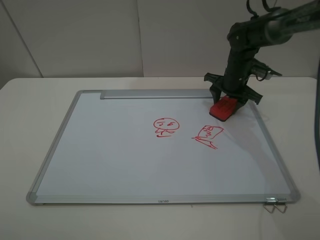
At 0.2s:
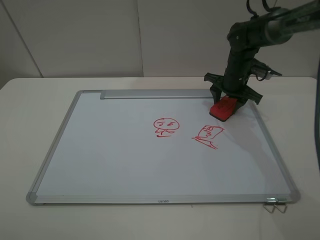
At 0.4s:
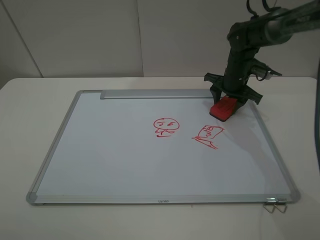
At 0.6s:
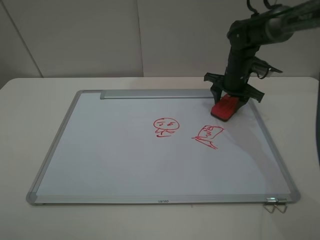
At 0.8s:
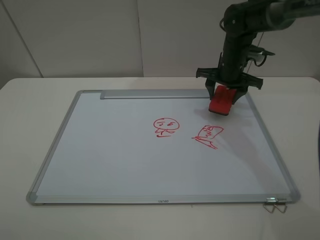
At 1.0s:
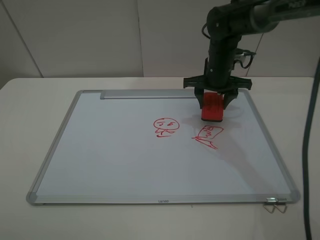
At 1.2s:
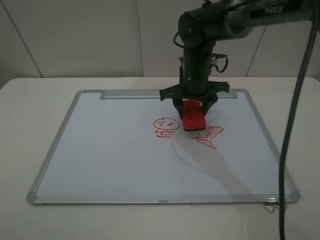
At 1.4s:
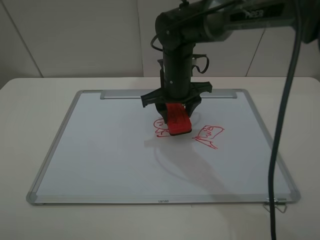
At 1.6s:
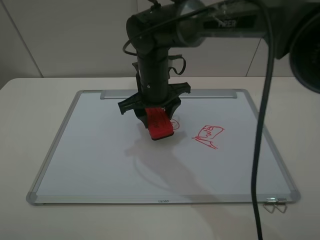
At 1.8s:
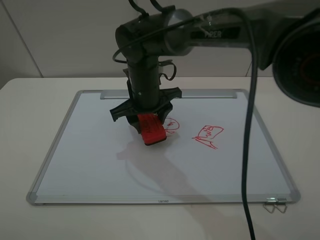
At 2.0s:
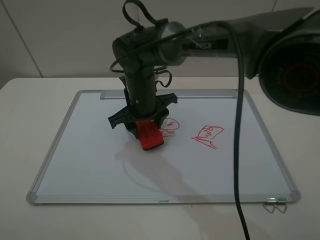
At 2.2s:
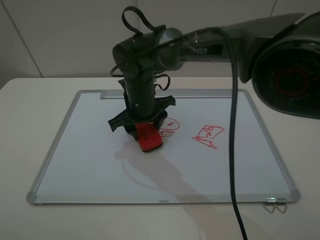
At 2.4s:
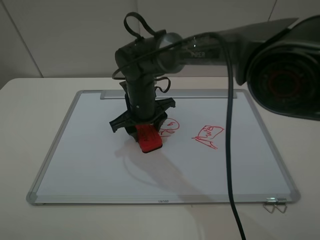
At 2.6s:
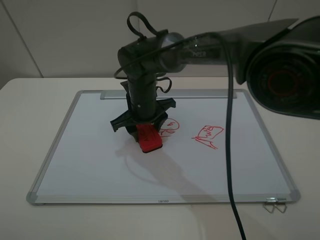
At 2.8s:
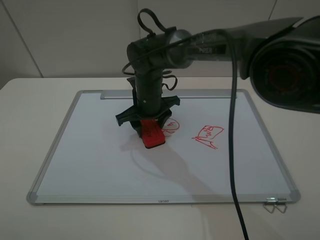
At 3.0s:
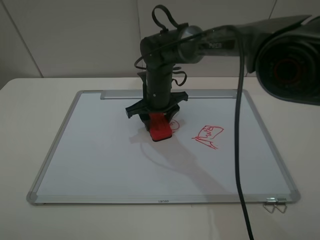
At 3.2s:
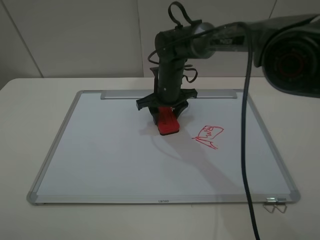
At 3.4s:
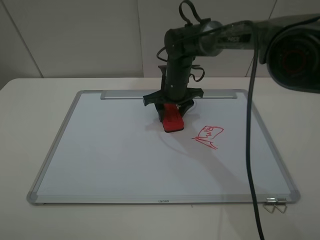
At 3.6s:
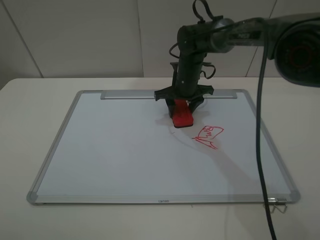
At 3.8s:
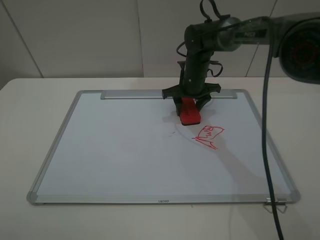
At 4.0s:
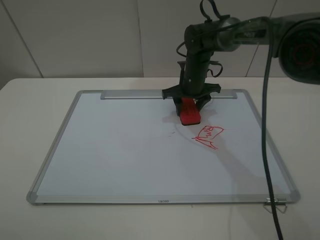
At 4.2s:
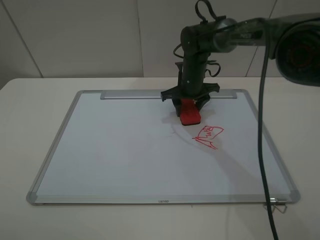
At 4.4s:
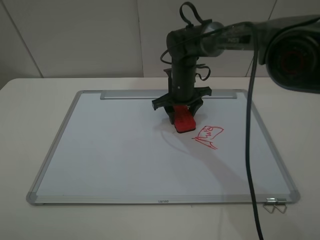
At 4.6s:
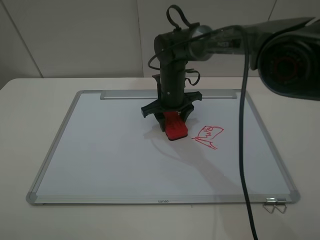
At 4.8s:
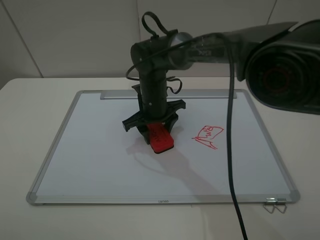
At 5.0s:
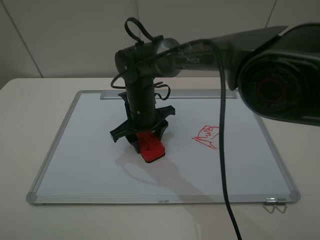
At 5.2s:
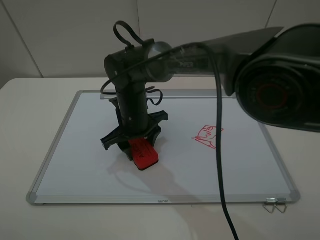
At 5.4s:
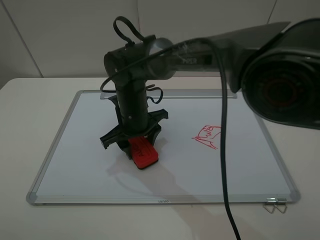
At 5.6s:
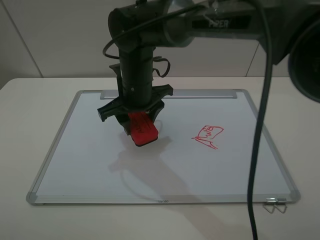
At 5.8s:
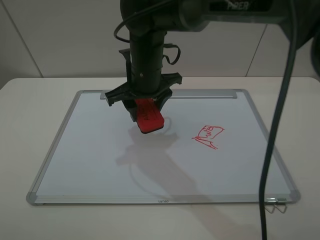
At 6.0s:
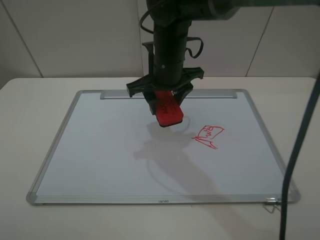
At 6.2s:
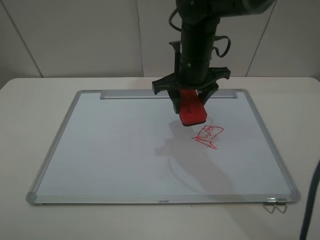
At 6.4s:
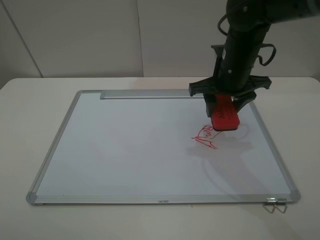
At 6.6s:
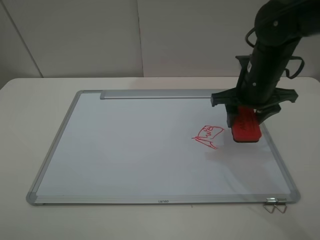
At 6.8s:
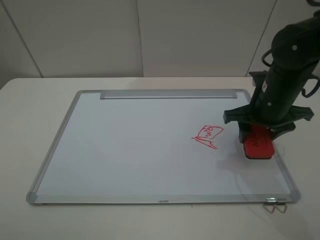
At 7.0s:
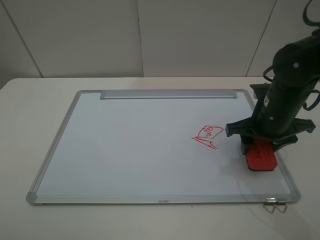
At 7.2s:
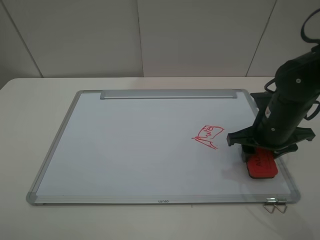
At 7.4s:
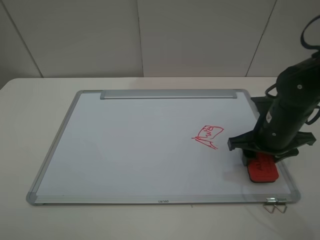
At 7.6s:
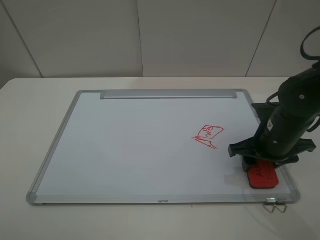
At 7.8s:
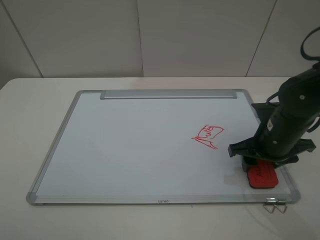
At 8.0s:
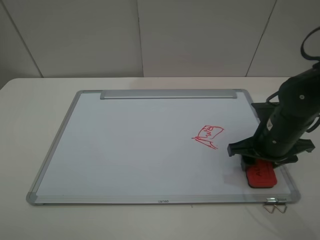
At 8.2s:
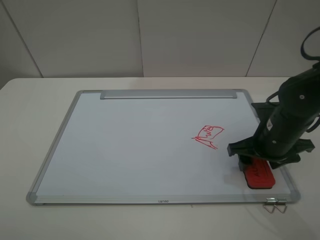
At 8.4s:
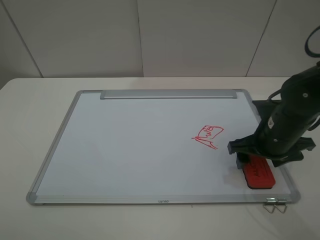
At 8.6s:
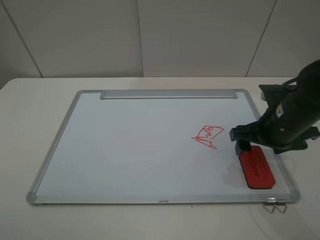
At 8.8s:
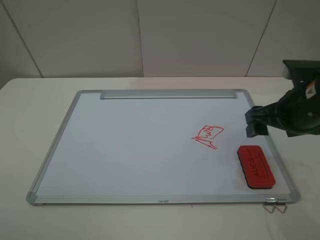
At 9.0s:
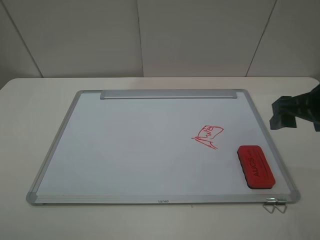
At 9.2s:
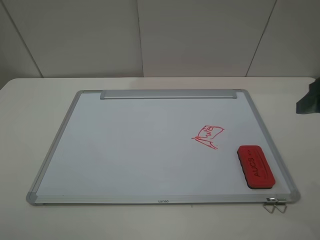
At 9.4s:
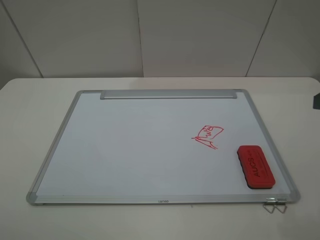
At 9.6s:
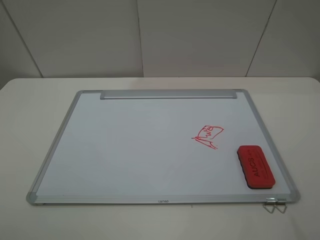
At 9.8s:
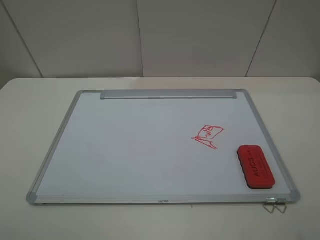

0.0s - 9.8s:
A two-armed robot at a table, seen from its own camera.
Step, 0.2s - 5.6s: Grasp the eraser and wipe the blackboard with the right gripper.
Step, 5.8s - 8.6s: Place the eraser with the right gripper.
0.0s - 1.4s: The right gripper goes roughly 20 cm to the left and backward.
1.4s - 2.8s: The right gripper moves downward, about 5 cm.
2.8s - 4.2s: The right gripper travels to the right and forward by some 10 cm.
4.2s - 5.6s: The right gripper goes some 20 cm to the left, backward and upward.
5.6s - 7.0s: The right gripper goes about 25 cm to the right.
7.0s - 8.4s: The right gripper opens its fingers.
8.4s - 9.8s: The right gripper heads upward and backward, covering some 25 cm.

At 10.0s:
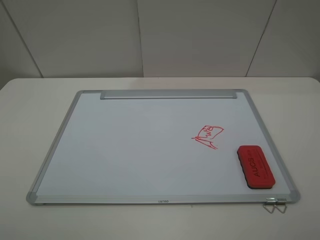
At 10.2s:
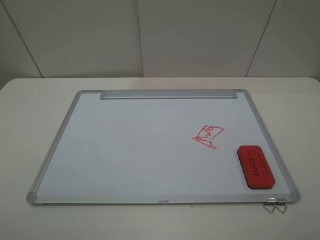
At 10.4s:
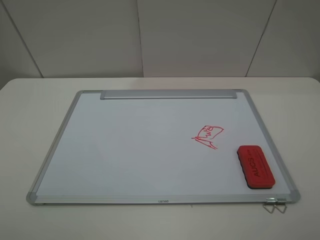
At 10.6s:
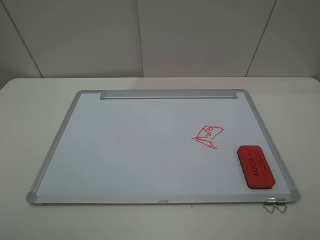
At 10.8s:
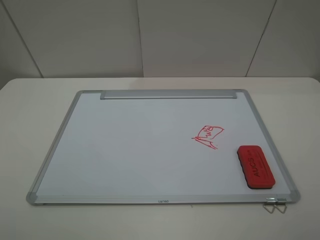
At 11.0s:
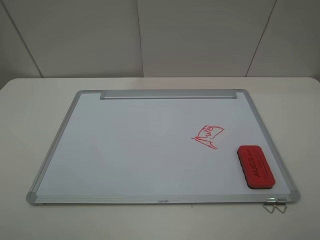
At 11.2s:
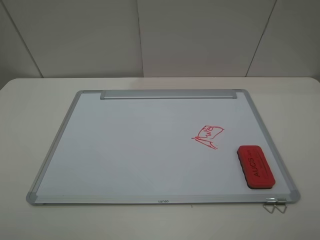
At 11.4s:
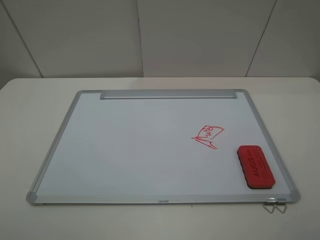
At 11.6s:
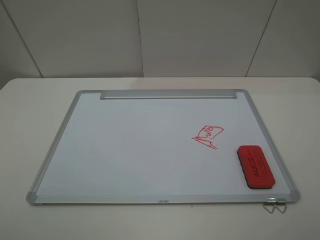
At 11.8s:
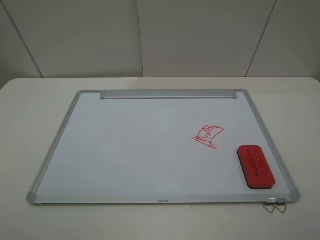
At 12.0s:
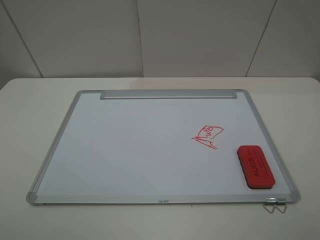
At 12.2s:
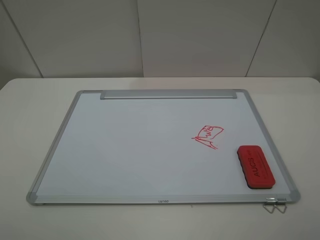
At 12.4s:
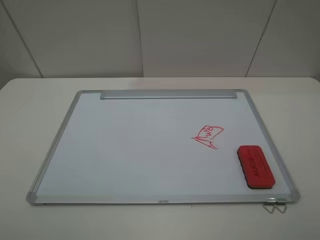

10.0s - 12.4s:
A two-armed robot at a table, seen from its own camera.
11.2s - 12.4s: The two grippers keep their place.

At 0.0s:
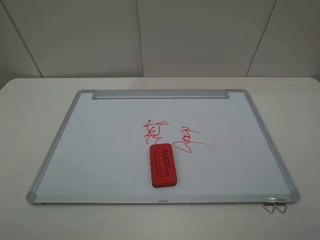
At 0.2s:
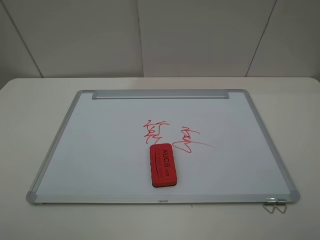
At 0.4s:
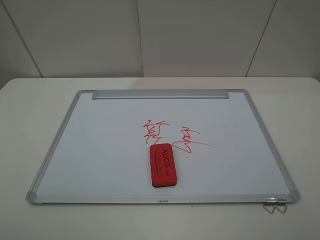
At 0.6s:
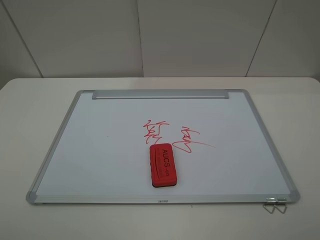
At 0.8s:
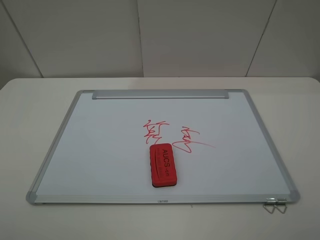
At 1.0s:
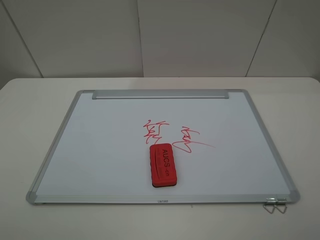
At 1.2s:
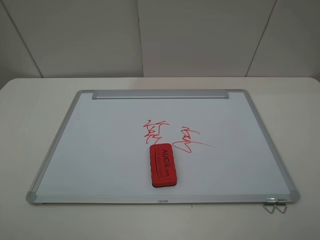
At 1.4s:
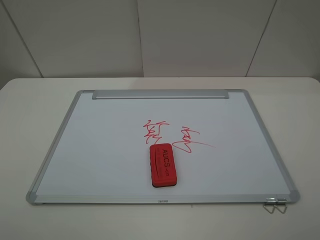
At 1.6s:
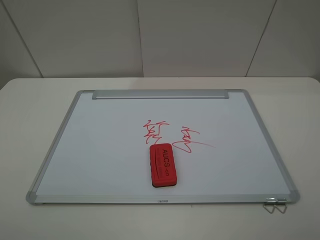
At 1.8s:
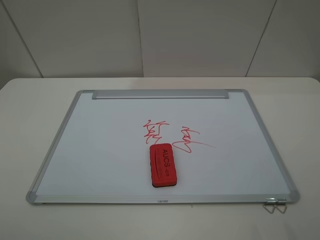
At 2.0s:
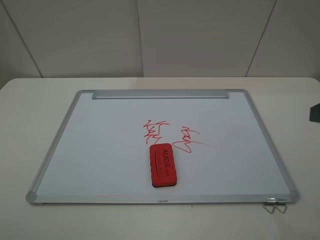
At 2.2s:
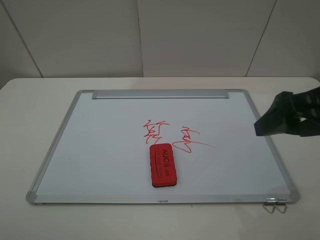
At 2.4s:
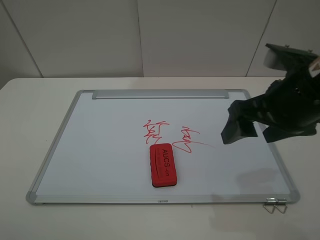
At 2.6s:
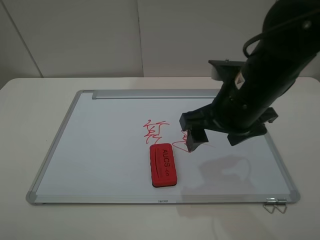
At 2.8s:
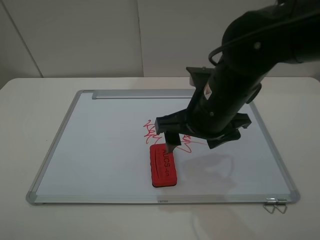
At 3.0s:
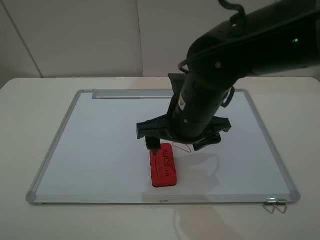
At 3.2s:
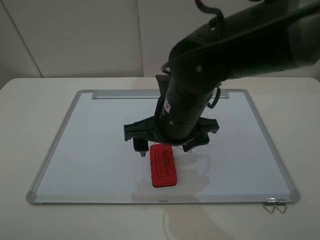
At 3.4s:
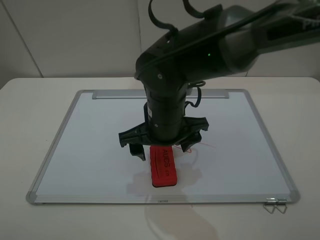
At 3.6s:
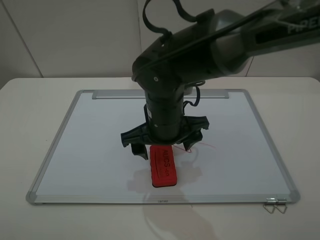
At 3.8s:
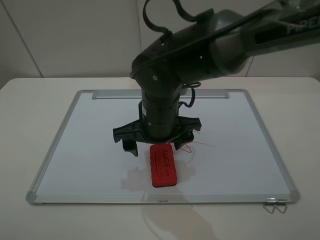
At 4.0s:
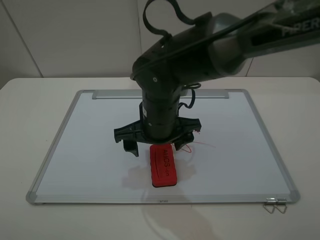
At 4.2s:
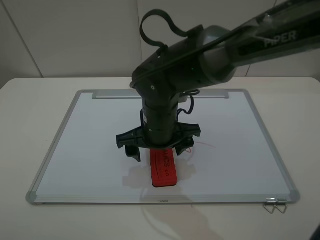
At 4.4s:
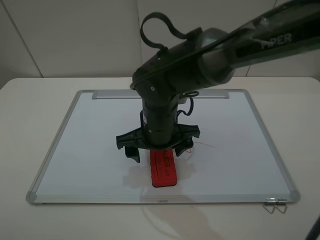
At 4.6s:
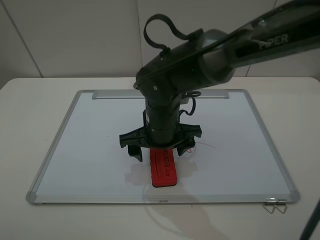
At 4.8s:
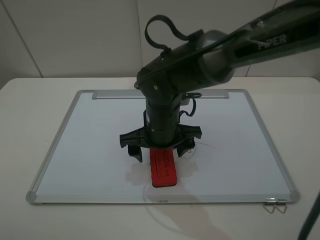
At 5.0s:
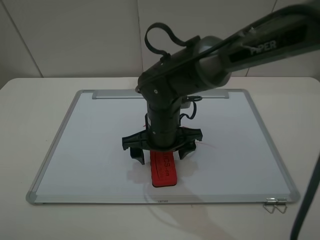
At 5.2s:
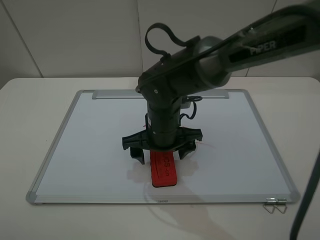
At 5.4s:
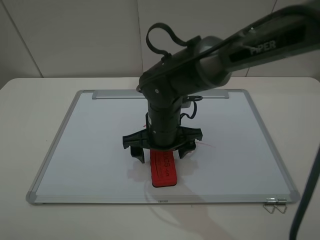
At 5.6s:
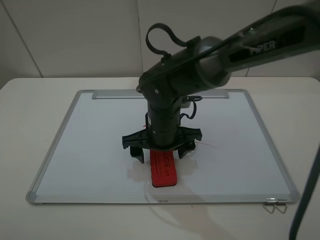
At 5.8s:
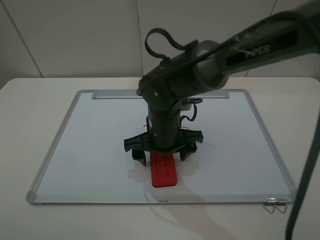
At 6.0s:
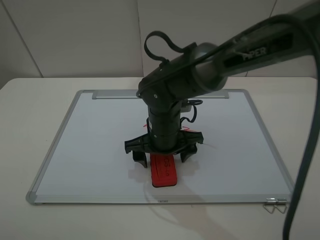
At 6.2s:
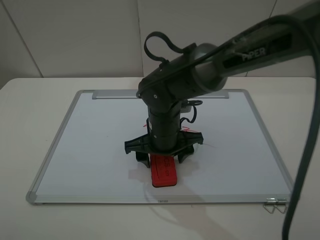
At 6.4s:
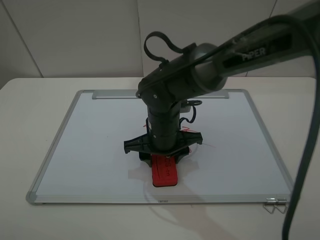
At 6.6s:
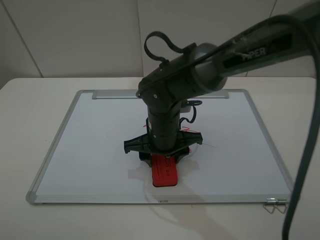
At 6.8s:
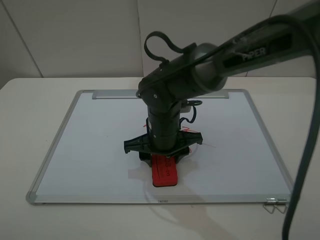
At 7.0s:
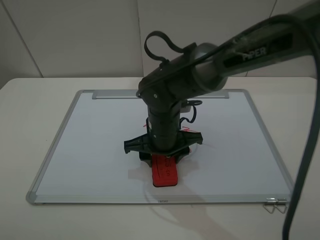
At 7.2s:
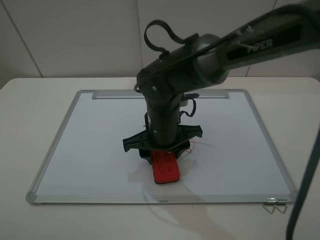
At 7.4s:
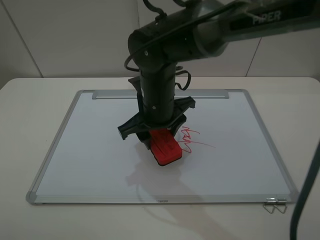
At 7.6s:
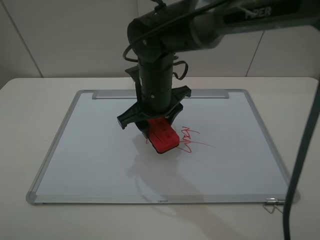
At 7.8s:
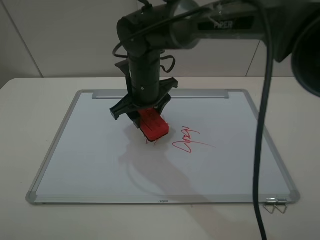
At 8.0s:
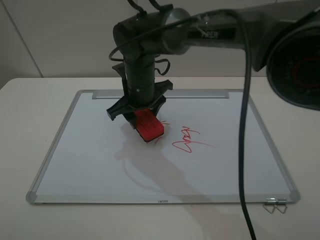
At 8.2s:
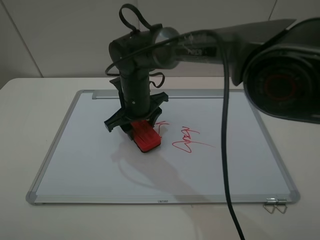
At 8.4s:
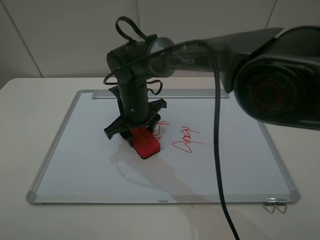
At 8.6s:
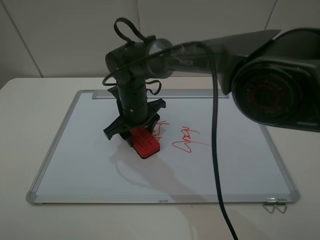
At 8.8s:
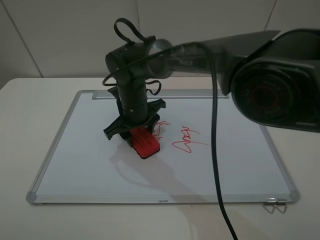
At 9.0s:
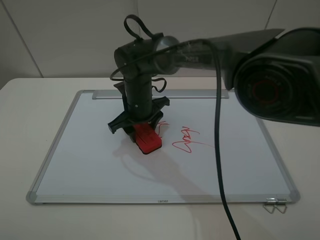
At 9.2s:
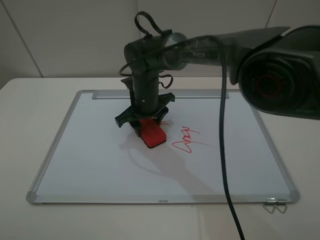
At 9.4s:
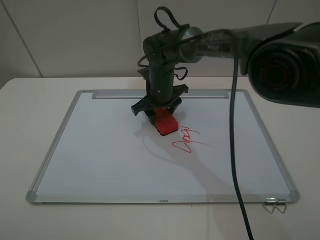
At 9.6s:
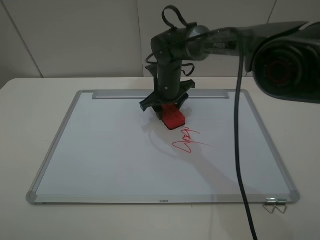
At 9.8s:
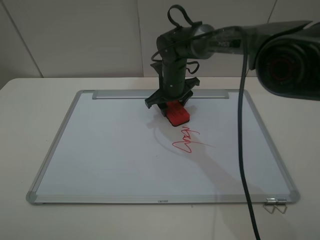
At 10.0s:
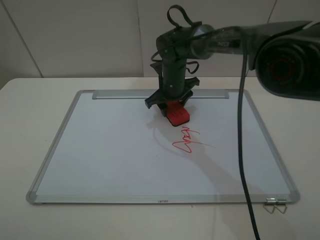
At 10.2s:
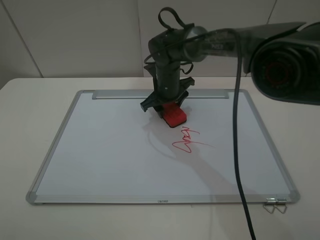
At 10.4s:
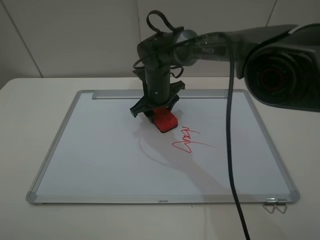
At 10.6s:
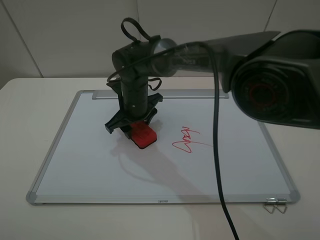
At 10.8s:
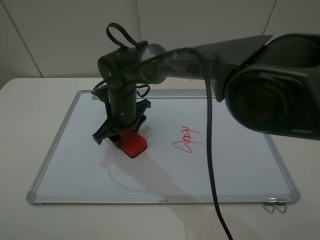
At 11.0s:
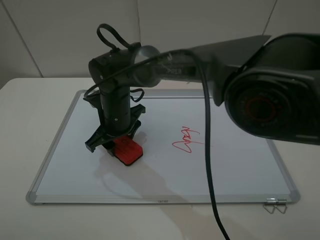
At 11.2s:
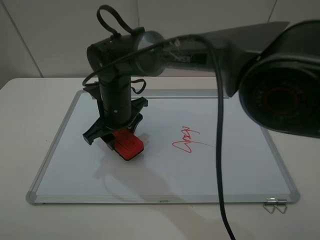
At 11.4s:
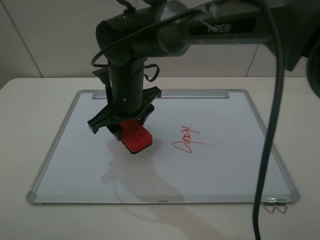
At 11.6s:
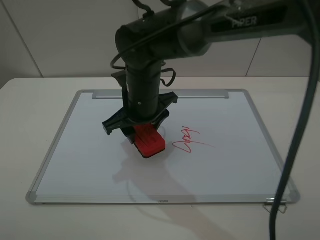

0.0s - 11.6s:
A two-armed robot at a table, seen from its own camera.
Step, 0.0s - 6.4s: Grasp the eraser with the right gripper.
Step, 6.6s - 11.2s: Grasp the eraser and wipe the blackboard with the right gripper.
0.0s - 1.4s: Both grippers stay put.
1.4s - 2.8s: The right gripper goes roughly 30 cm forward and to the left.
2.8s - 4.4s: The right gripper is displaced to the left and downward by roughly 10 cm.
4.4s - 5.8s: The grippers move only a little.
5.8s - 7.2s: The right gripper closes.
7.2s - 8.8s: The right gripper goes roughly 10 cm forward and to the left.
8.8s - 10.2s: The right gripper goes roughly 10 cm forward and to the right.
10.2s - 11.6s: The right gripper shifts roughly 15 cm backward and upward.
